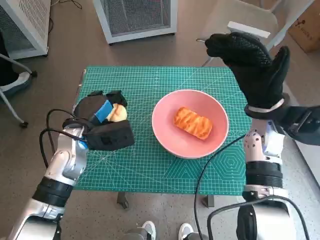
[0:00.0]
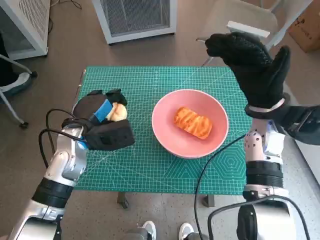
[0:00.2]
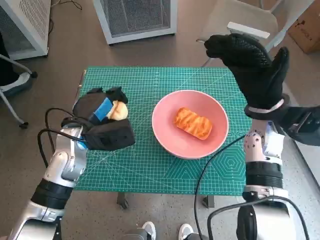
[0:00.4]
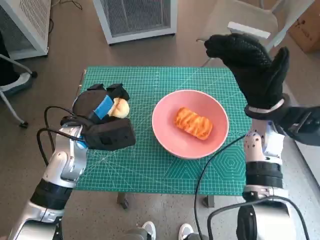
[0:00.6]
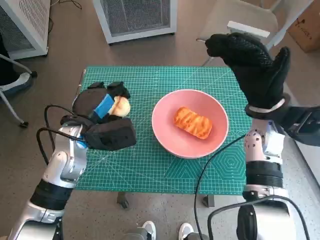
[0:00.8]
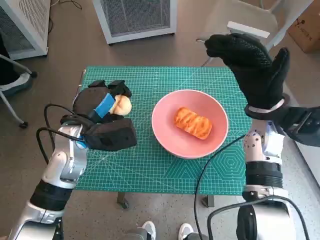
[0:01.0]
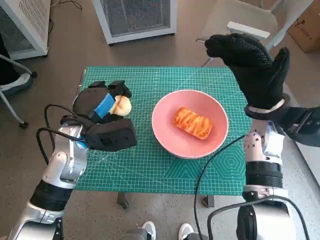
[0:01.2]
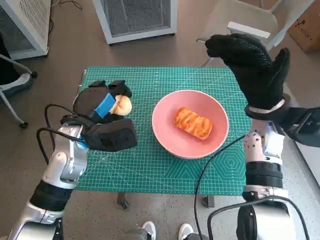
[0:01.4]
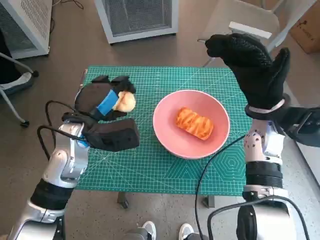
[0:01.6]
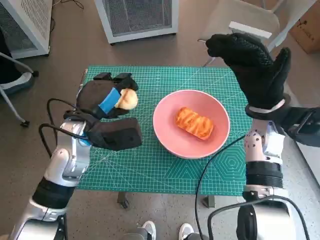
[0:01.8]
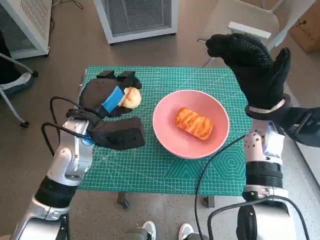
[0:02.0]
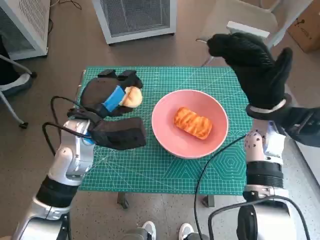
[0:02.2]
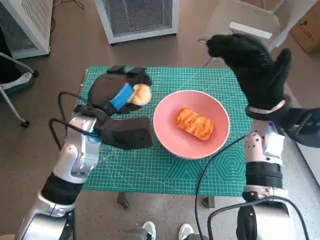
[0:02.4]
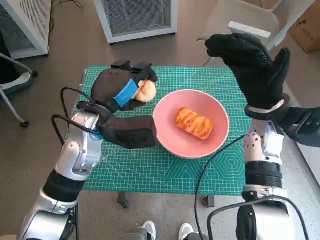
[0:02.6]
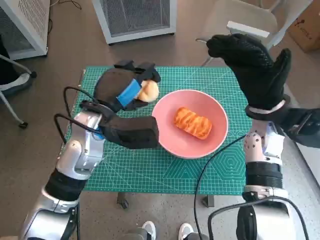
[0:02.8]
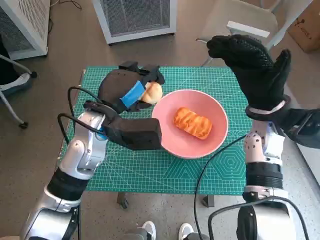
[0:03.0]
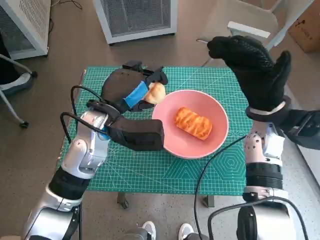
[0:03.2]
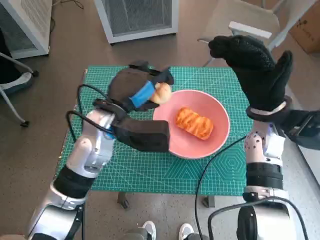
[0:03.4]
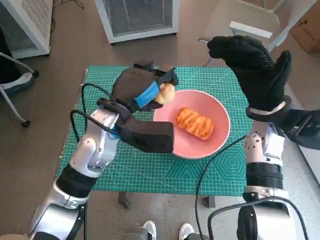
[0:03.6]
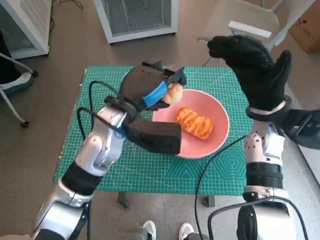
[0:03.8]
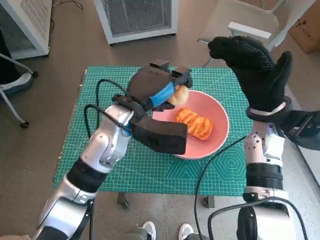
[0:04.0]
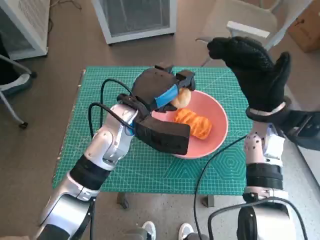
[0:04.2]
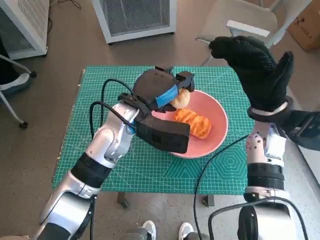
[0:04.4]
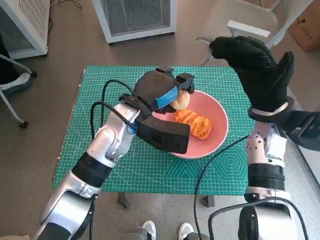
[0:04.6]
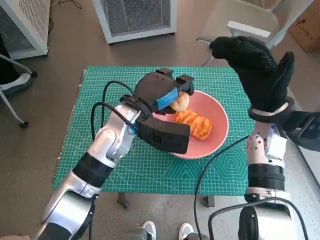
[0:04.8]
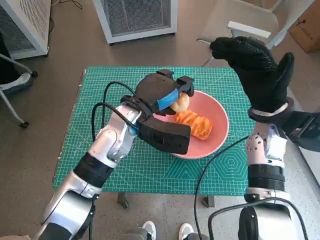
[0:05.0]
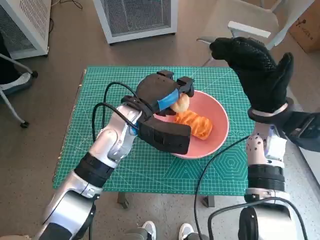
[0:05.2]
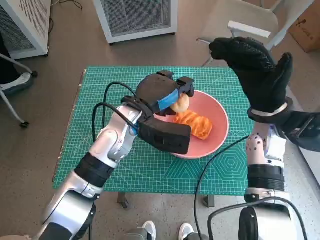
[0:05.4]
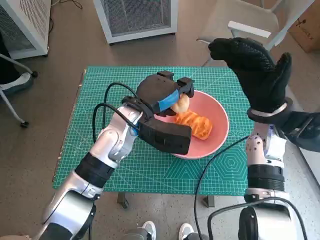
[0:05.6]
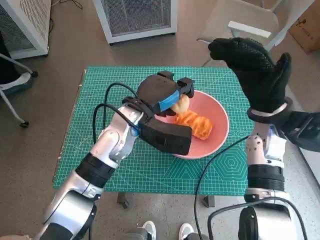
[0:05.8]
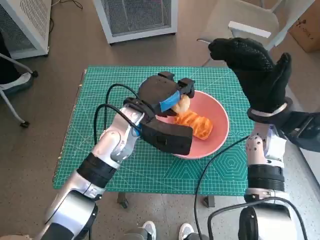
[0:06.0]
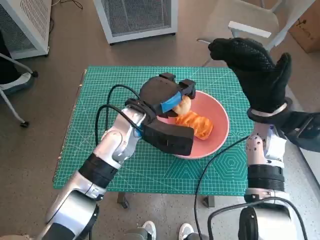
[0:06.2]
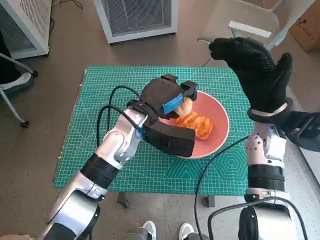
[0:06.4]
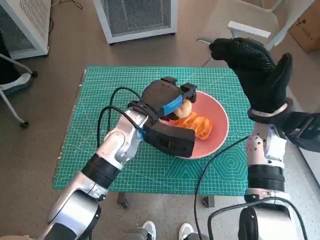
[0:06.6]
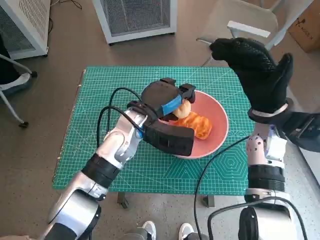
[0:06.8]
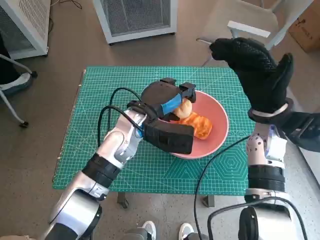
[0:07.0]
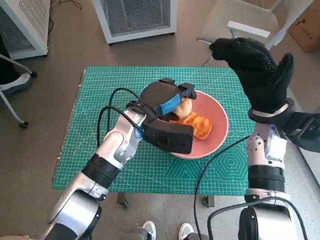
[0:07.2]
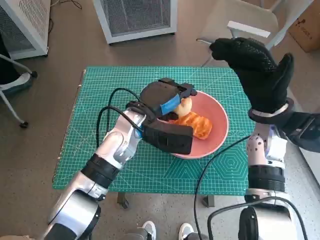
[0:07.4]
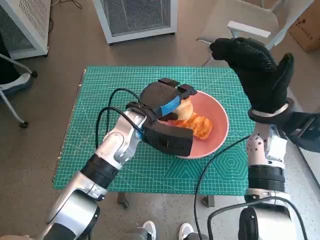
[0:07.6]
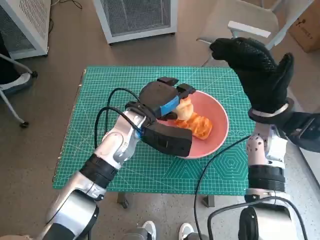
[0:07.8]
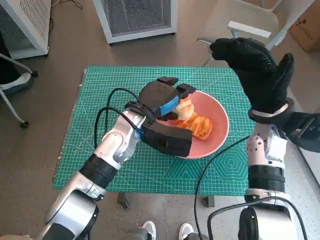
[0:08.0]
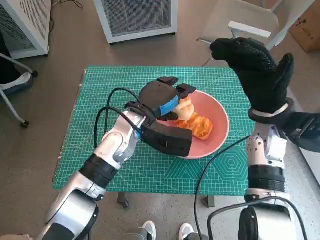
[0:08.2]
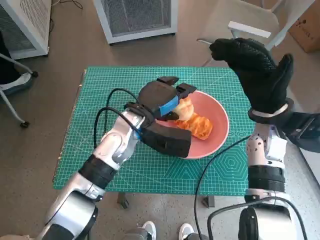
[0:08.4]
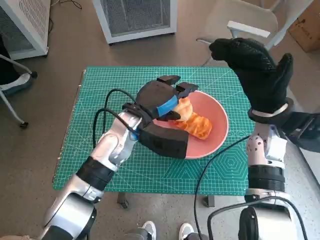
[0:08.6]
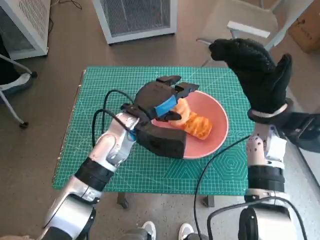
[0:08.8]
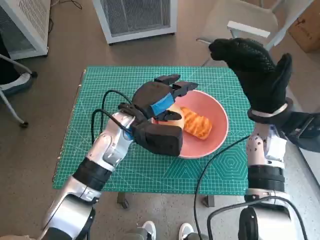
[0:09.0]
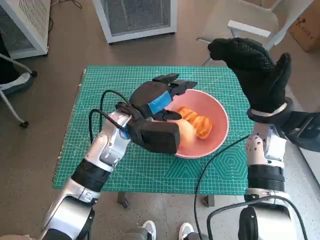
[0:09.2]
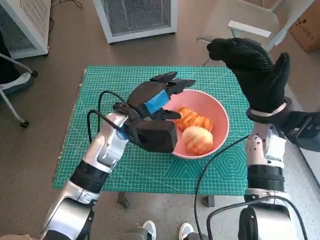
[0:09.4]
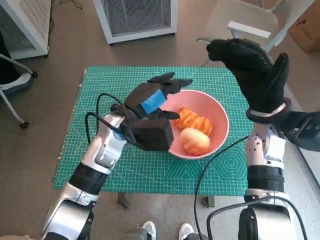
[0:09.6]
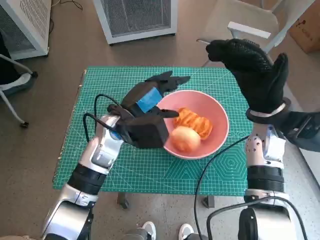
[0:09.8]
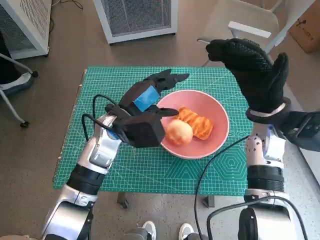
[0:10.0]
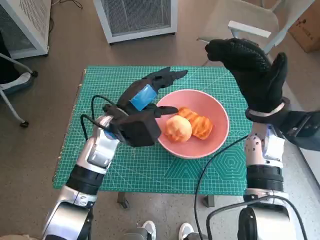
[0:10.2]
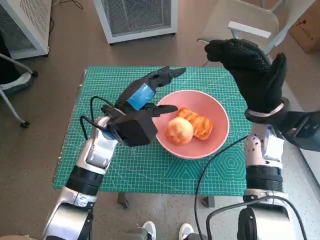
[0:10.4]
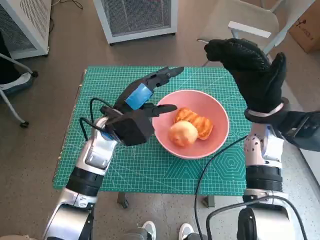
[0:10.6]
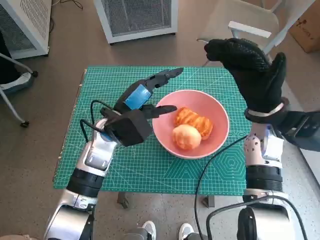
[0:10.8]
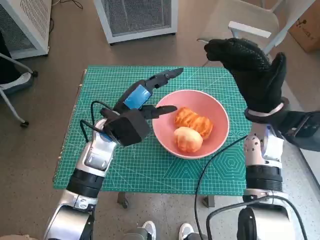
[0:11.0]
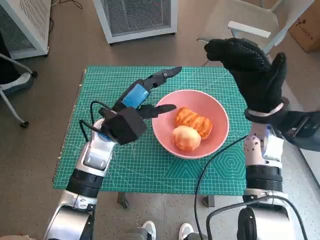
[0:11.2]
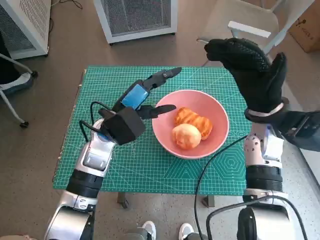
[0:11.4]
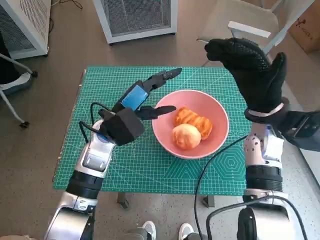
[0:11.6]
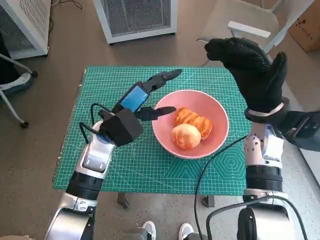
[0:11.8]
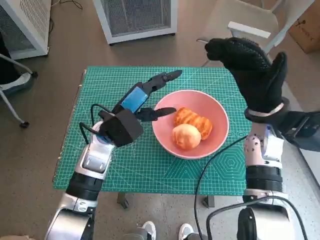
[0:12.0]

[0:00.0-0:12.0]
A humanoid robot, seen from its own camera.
Step, 0:00.0 to 0:08.8: Place the round bread in pink bowl with left hand.
0:00.0 to 0:01.6: The hands stay close to where they were, moving slightly.
0:01.6 to 0:03.0: The left hand moves roughly 5 cm.
0:03.0 to 0:04.4: The left hand goes some 5 cm to the right.
0:04.4 to 0:09.0: The hands stay close to where they were, moving slightly.
0:10.4 to 0:12.0: The hands make only small movements.

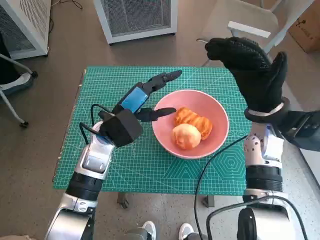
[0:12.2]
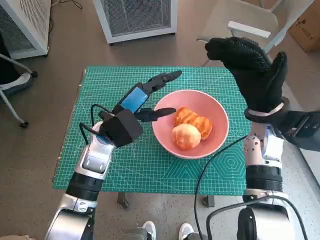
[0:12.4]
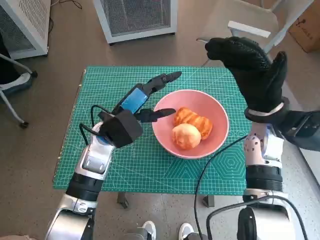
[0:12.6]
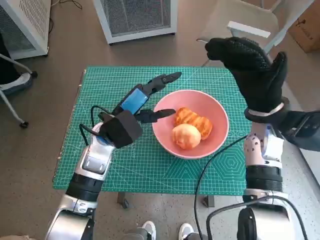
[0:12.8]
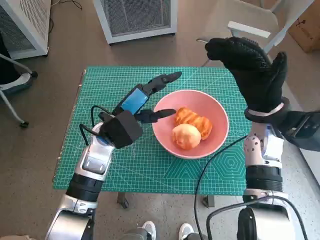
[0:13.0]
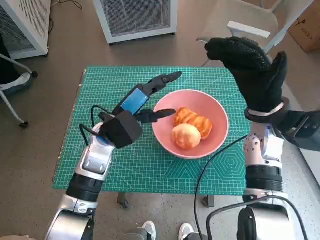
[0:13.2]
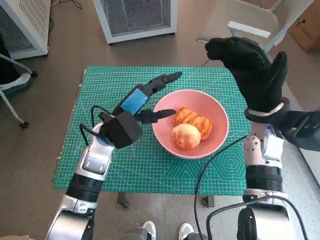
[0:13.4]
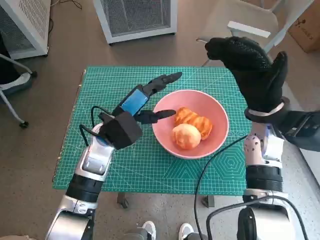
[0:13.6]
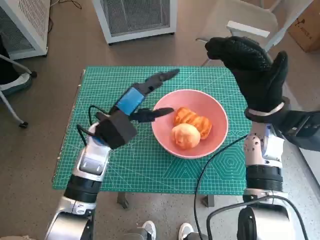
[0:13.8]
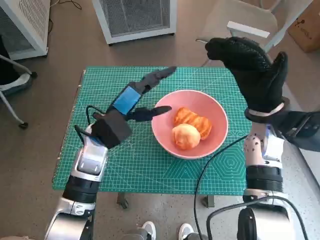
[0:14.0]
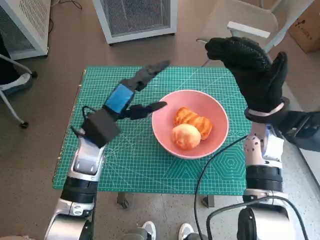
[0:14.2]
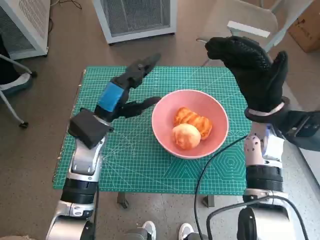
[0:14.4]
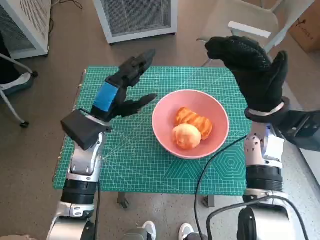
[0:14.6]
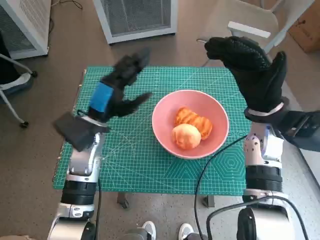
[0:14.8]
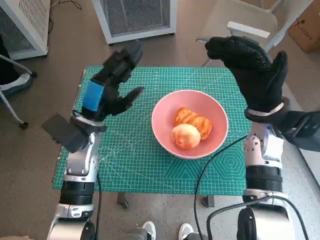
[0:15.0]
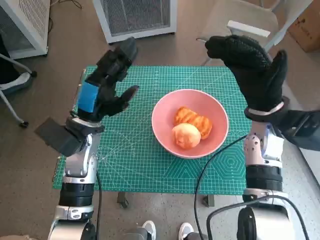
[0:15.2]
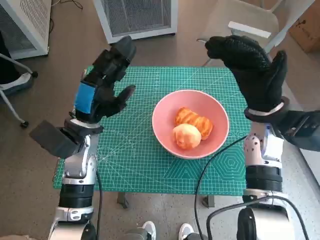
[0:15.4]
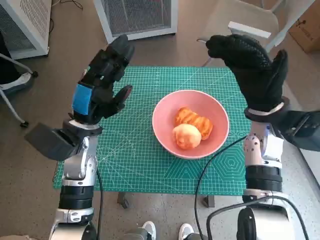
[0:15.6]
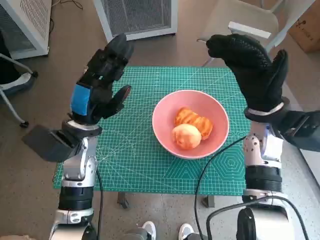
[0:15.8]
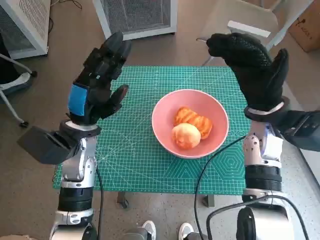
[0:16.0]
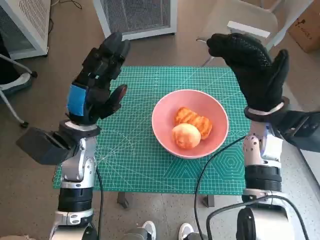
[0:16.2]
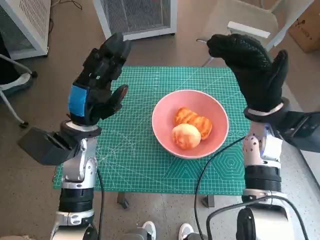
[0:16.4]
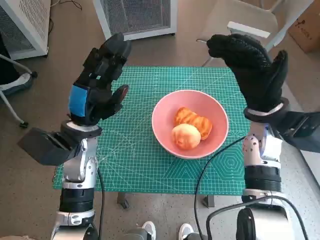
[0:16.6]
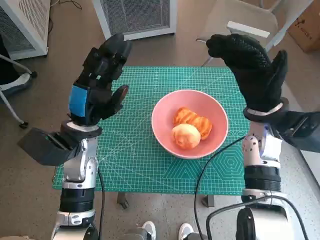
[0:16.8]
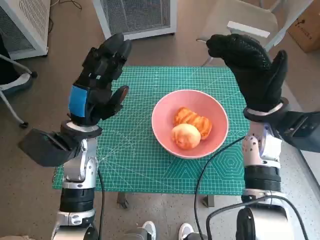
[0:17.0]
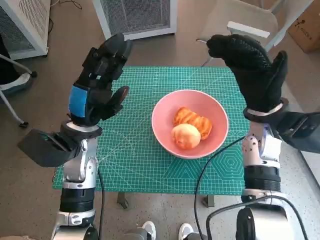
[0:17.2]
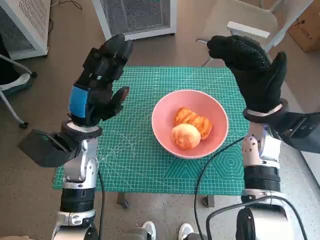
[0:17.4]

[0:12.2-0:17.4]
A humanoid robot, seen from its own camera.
0:12.2 to 0:14.0: Both hands stay put.
0:15.6 to 0:17.4: Both hands stay about where they are.

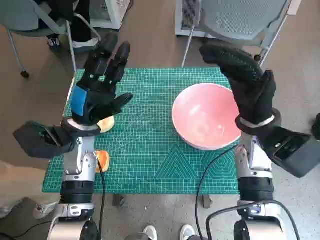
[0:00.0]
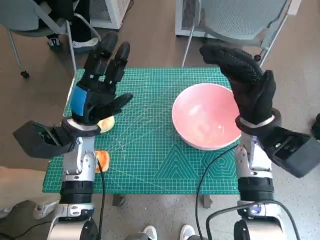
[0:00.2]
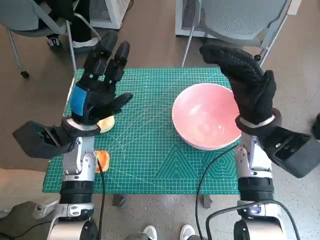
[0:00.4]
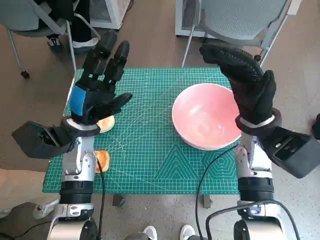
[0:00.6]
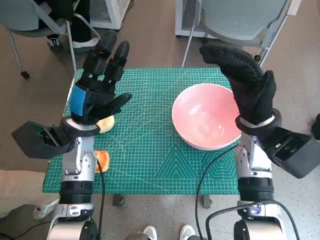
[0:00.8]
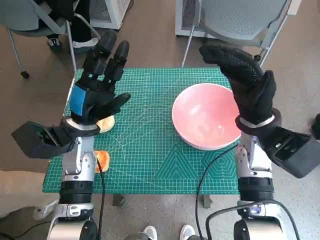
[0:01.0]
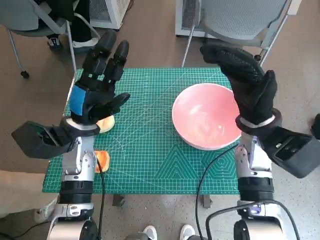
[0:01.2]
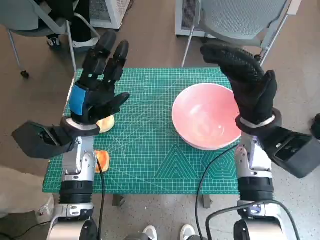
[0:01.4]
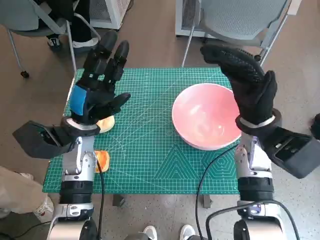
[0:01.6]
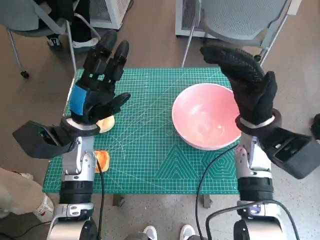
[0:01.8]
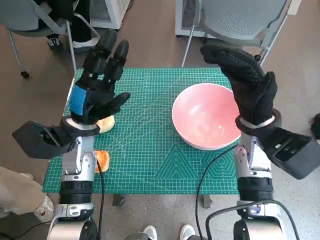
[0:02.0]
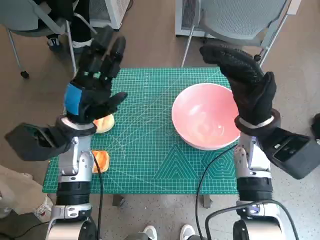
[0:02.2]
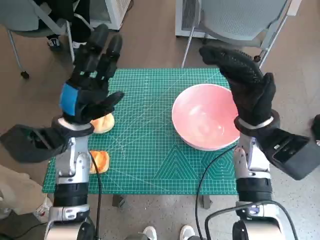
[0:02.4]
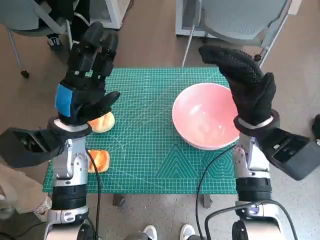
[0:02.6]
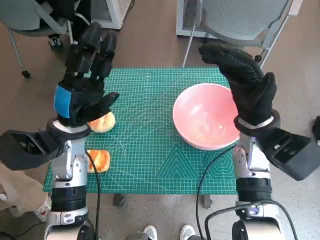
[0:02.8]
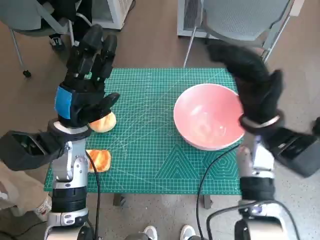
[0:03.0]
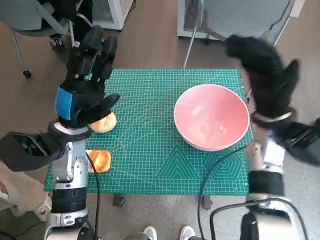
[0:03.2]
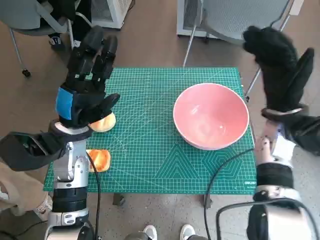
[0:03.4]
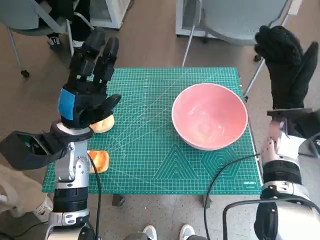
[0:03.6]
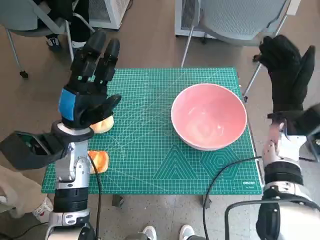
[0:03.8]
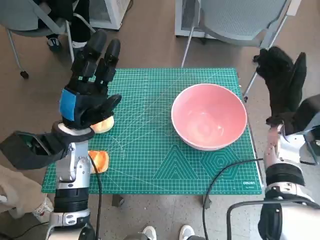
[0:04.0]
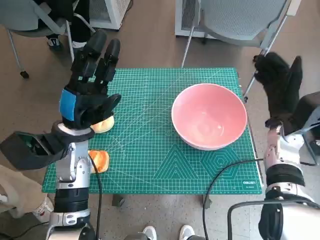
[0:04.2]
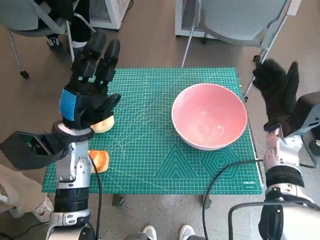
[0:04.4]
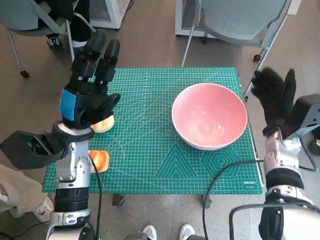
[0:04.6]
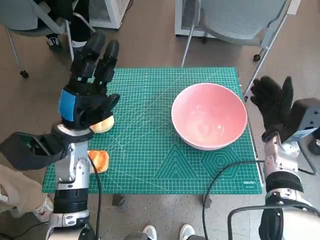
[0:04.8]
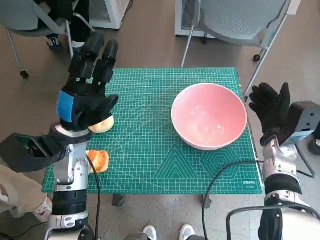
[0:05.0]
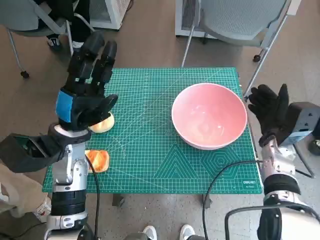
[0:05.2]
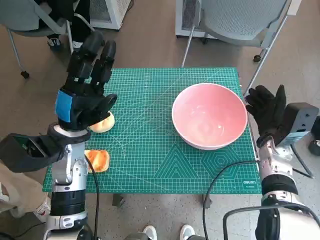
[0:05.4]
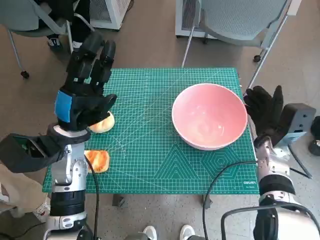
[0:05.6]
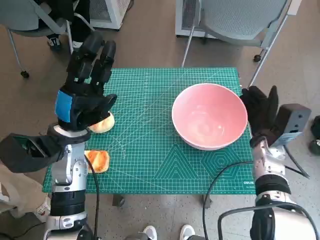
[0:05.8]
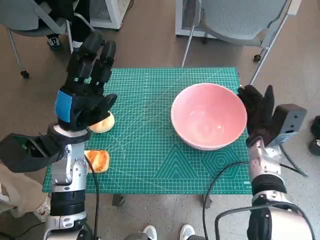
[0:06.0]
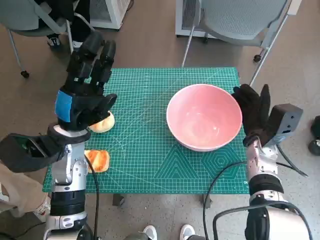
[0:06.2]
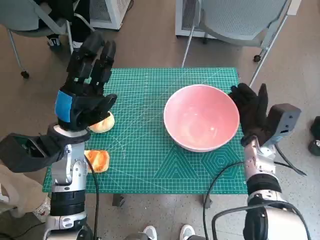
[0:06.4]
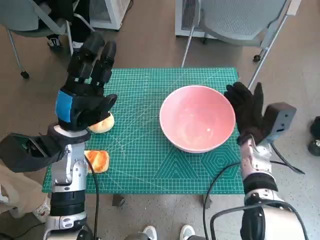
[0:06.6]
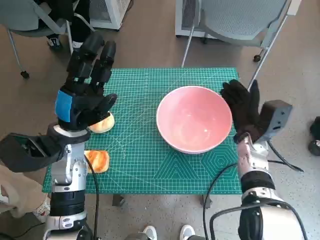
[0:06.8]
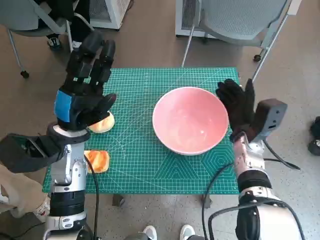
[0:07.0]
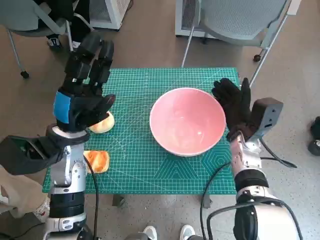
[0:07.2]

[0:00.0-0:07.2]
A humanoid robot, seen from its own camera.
0:01.4 to 0:02.8: The hands stay close to where they were, moving slightly.
0:02.8 to 0:04.4: The right hand is displaced to the right and downward by some 10 cm.
0:04.4 to 0:05.8: The hands stay close to where they were, moving slightly.
0:05.8 to 0:07.2: The right hand shifts roughly 5 cm to the left.
